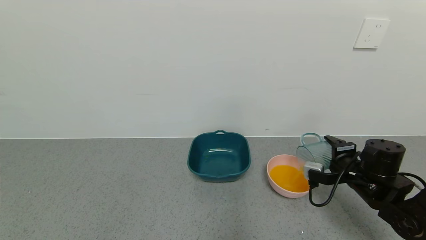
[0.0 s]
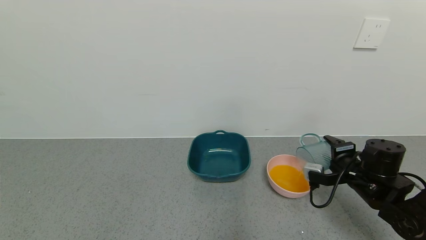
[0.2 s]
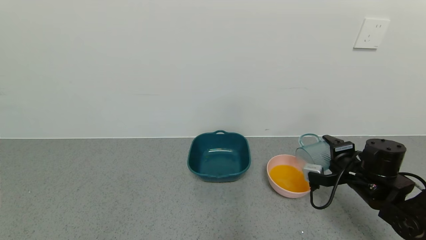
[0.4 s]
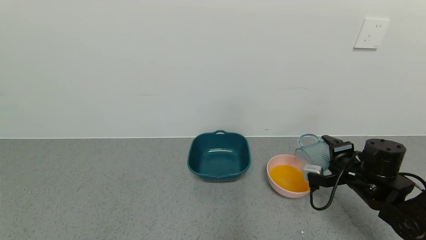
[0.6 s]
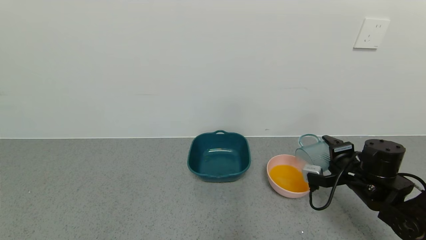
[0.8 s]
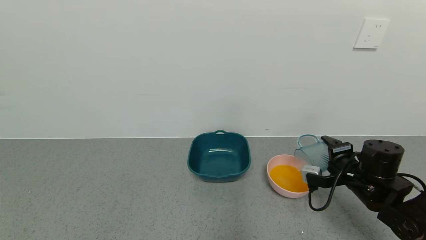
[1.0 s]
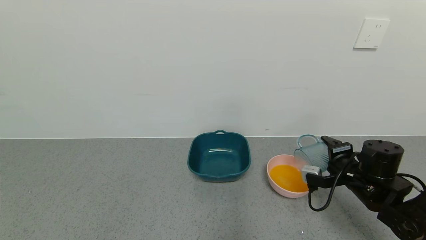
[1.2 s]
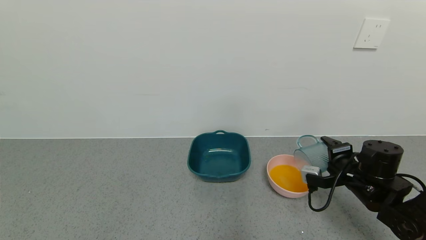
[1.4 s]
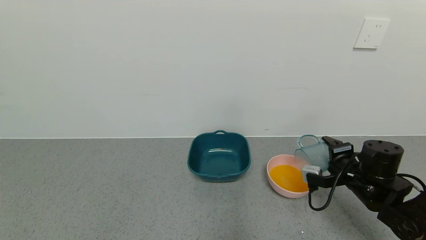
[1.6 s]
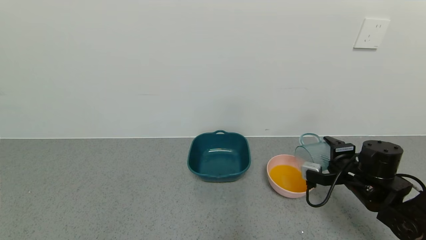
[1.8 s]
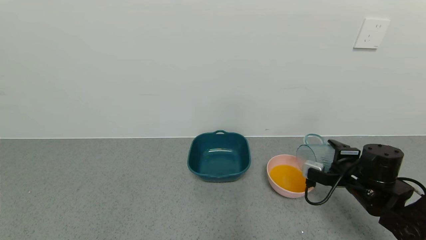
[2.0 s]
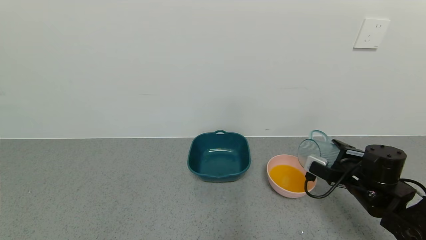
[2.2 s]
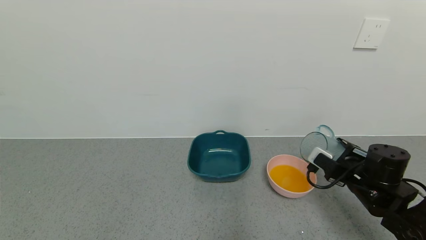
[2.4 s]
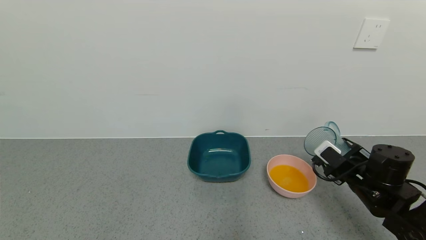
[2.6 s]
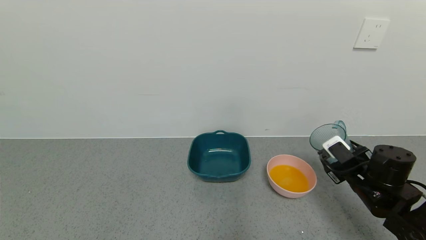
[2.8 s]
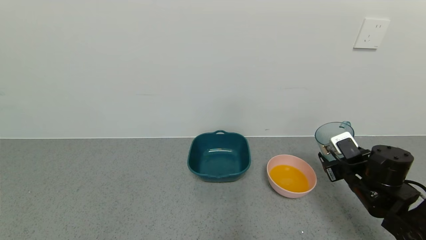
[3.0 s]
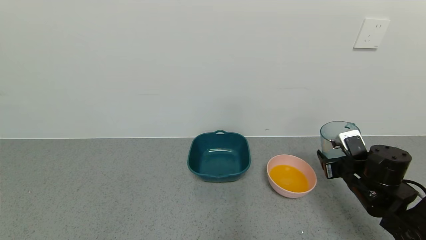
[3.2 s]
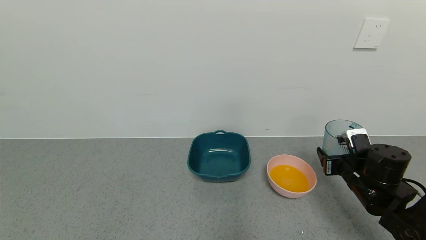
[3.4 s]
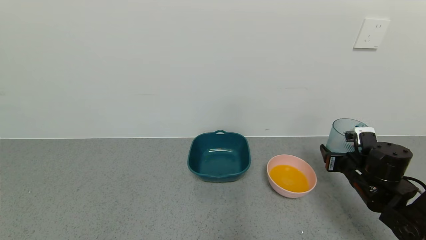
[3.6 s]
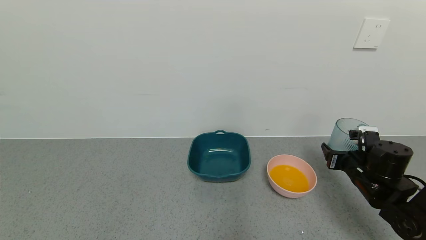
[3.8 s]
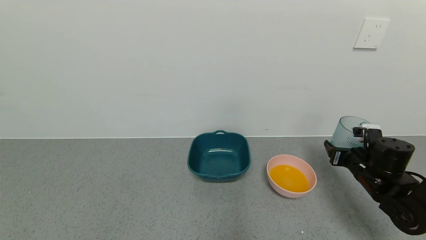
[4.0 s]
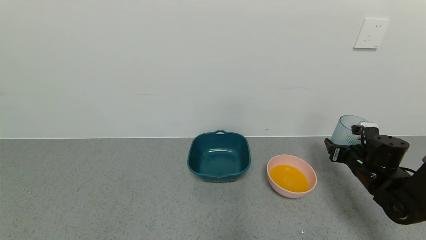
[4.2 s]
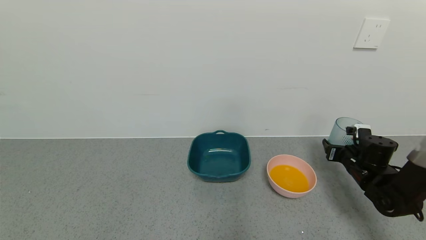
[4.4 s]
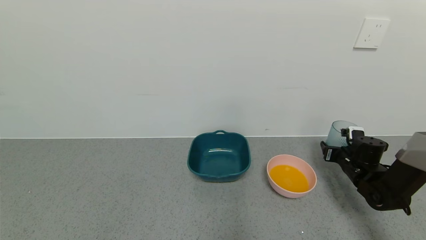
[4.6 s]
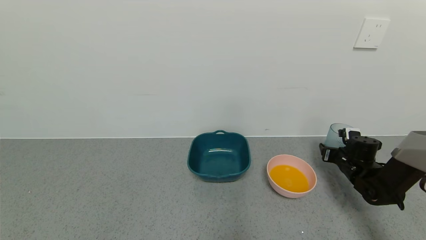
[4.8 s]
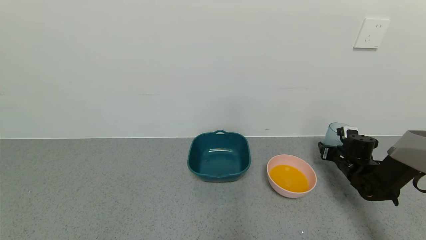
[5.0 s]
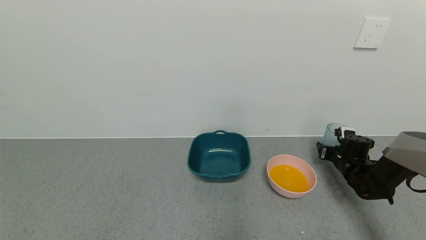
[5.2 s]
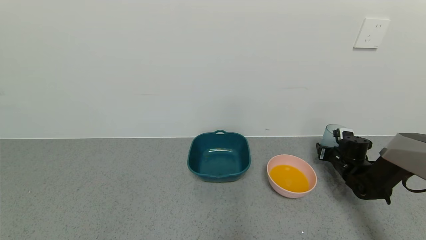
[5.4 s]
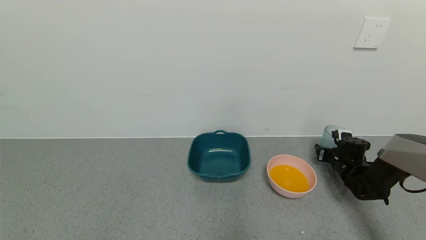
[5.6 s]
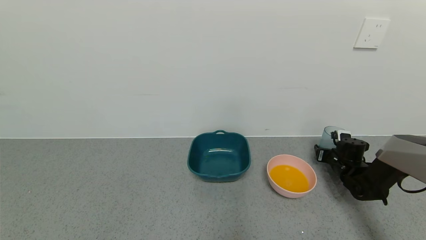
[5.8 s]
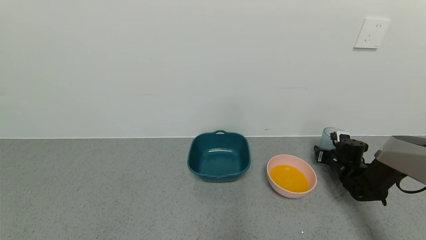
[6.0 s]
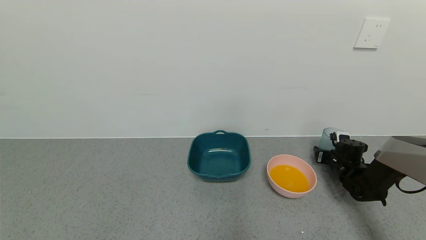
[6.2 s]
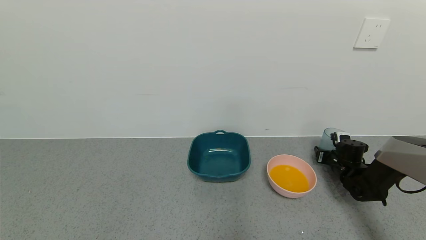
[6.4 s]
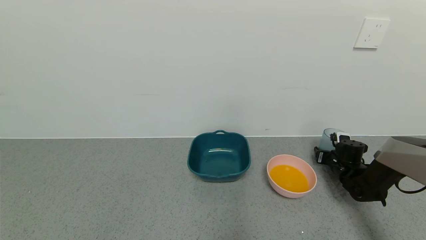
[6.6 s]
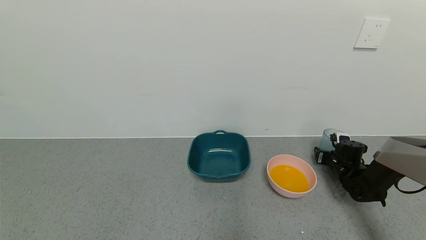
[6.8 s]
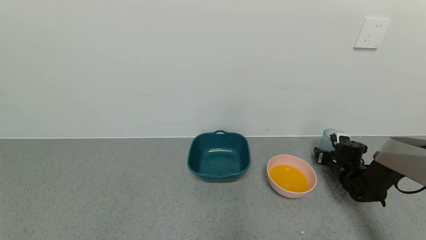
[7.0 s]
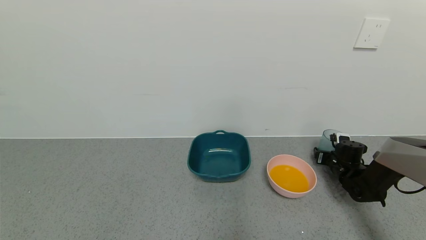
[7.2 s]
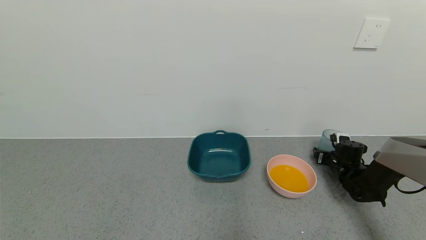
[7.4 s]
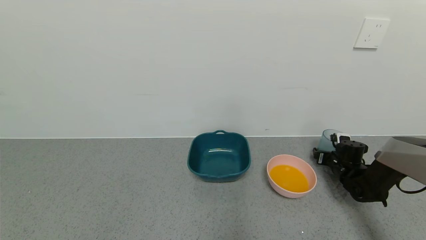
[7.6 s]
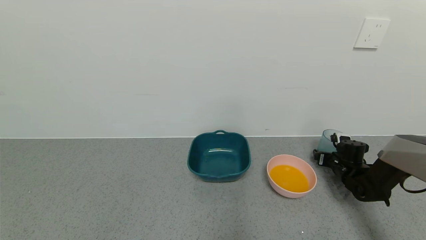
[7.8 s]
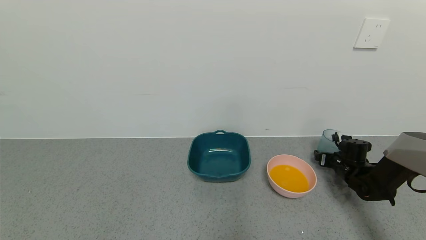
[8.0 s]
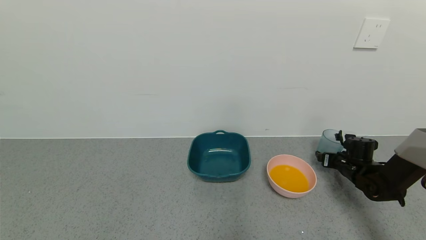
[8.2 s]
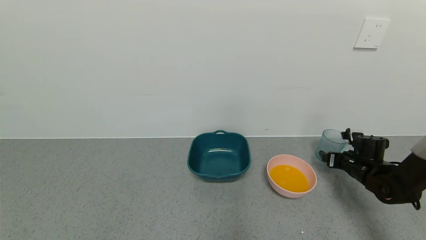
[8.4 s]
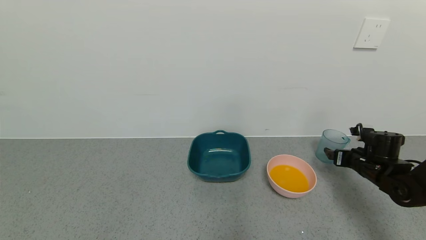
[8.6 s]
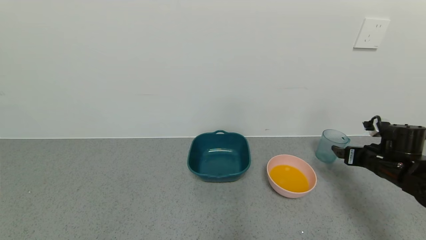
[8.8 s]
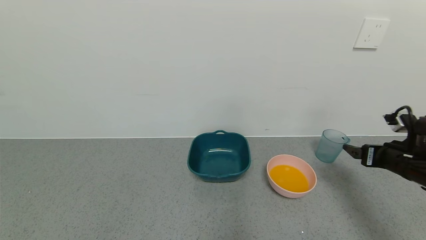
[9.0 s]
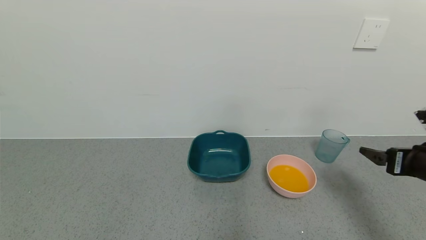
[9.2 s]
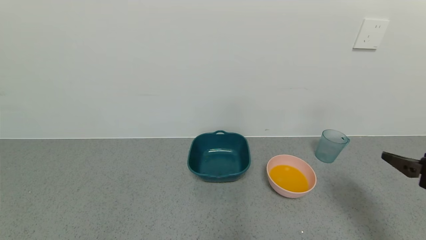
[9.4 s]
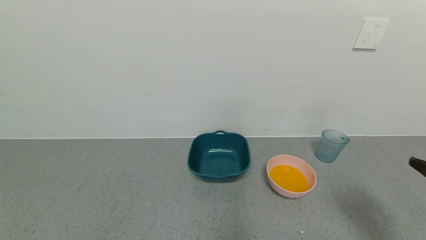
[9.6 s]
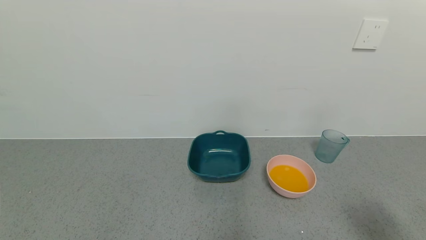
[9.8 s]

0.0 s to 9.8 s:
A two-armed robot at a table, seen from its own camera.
Task of the whole recording: use a gripper to pick up the cup and pour the liquid into a bowl or tray.
Step, 0.0 to 2.2 s: Pour the orange juice into the pink bowl with right gripper.
Step, 2.4 to 7.6 s: Place blue cup with orange juice on the table with right gripper.
0.0 to 1.4 s: The grippers move only a little.
2.8 to 4.2 s: The right gripper is displaced forward by approximately 5 cm.
4.2 to 5.6 s: The right gripper heads forward and downward, covering about 10 cm.
5.6 to 7.0 s: The grippers stay close to where they were, moving slightly.
7.0 to 8.4 s: The right gripper heads backward and upward, covering roughly 10 cm, and opens up.
8.4 to 9.8 s: The right gripper travels backward and upward by roughly 35 cm.
